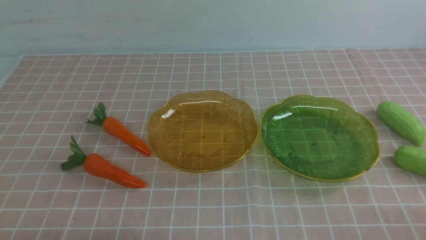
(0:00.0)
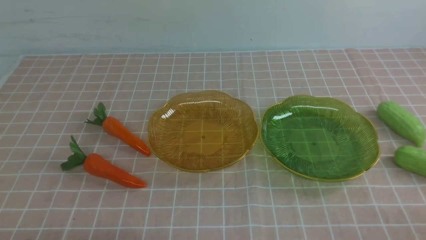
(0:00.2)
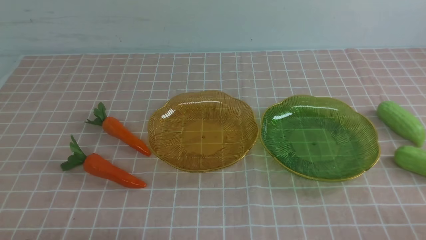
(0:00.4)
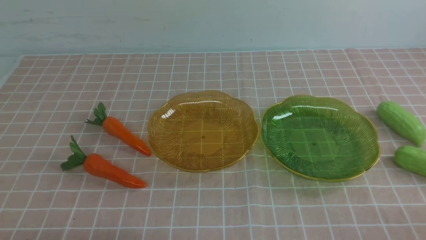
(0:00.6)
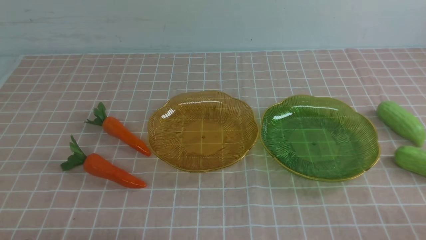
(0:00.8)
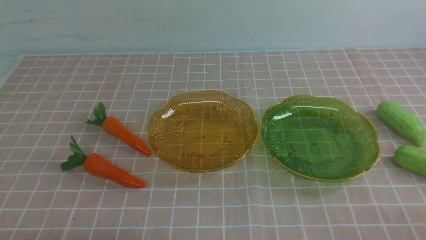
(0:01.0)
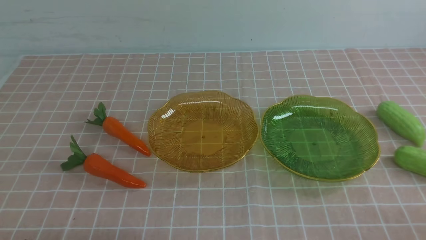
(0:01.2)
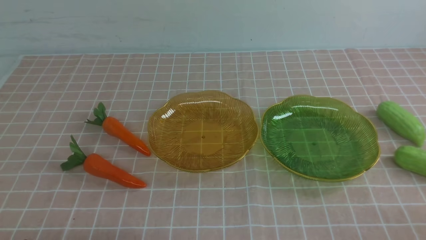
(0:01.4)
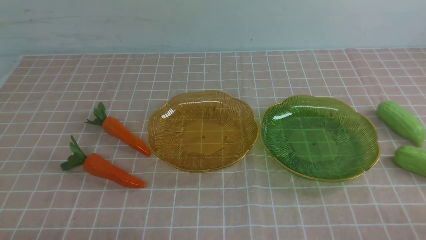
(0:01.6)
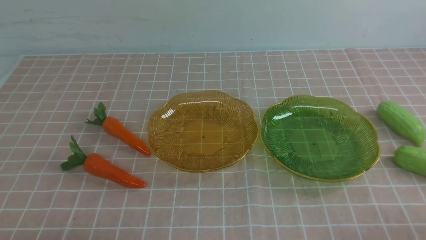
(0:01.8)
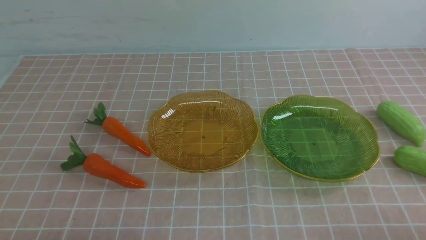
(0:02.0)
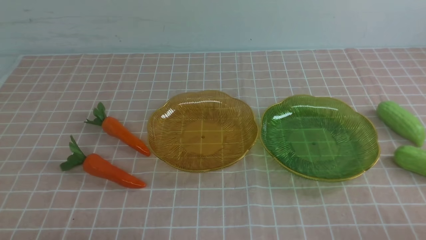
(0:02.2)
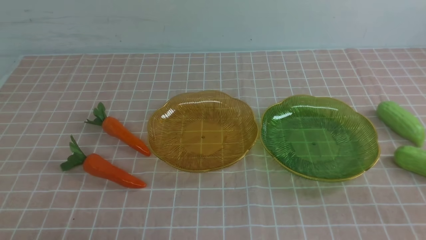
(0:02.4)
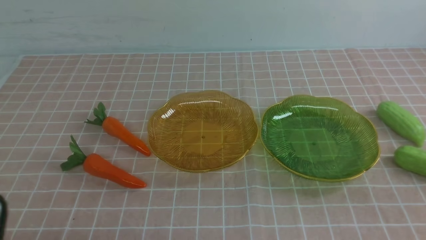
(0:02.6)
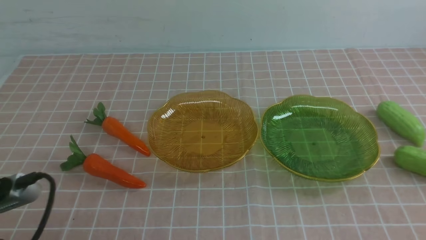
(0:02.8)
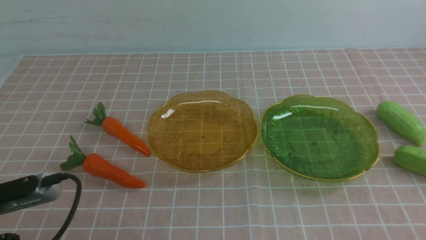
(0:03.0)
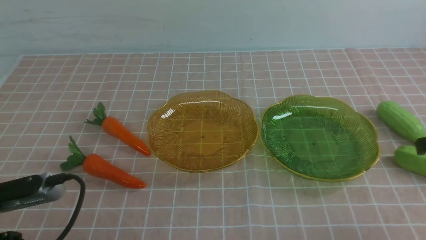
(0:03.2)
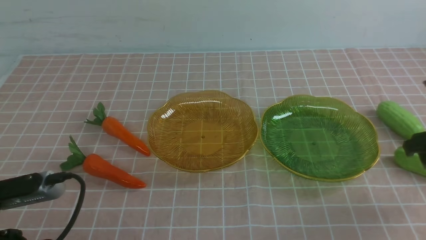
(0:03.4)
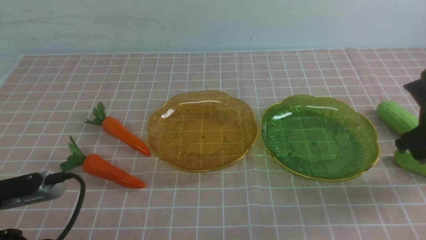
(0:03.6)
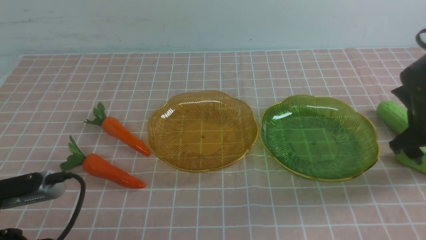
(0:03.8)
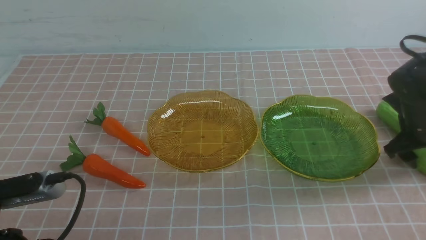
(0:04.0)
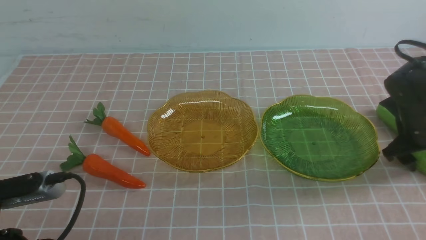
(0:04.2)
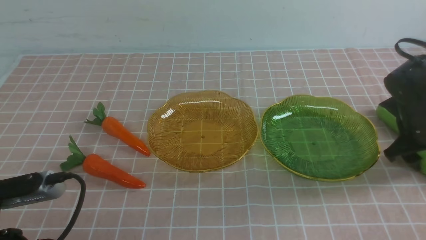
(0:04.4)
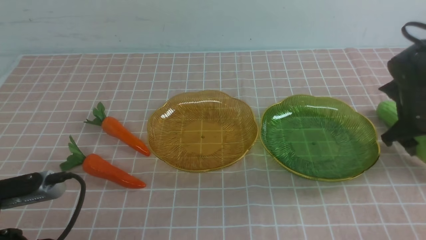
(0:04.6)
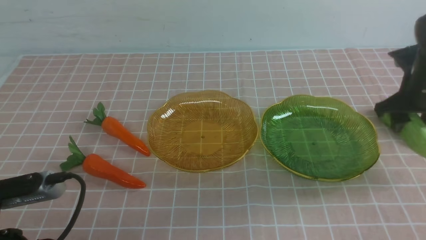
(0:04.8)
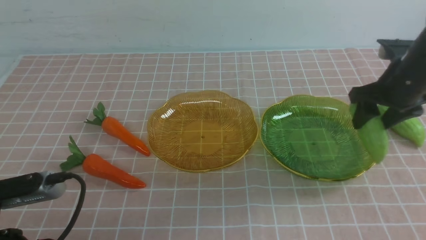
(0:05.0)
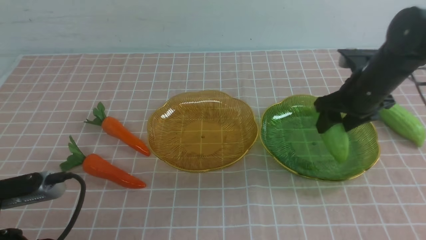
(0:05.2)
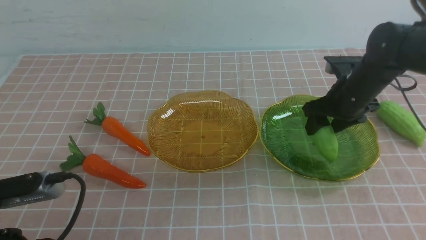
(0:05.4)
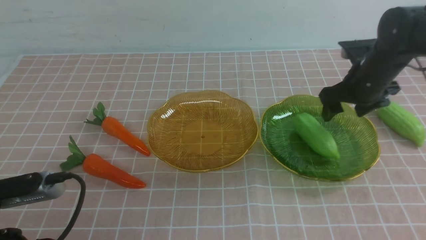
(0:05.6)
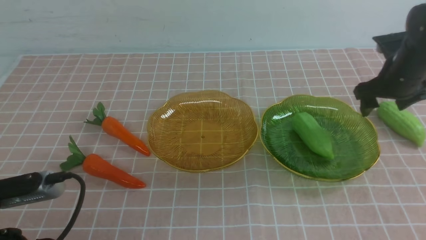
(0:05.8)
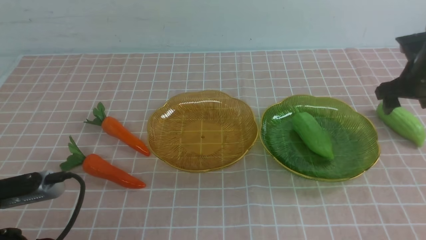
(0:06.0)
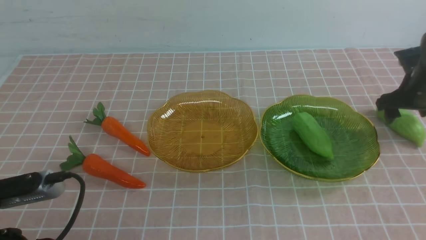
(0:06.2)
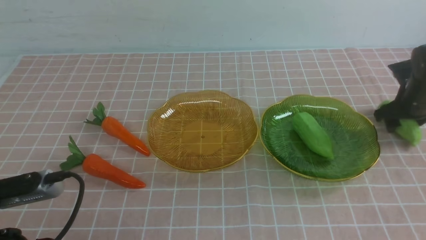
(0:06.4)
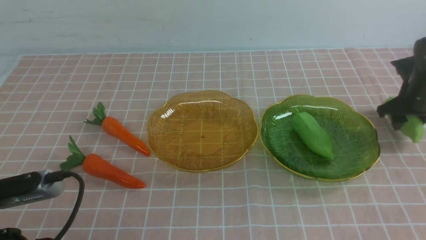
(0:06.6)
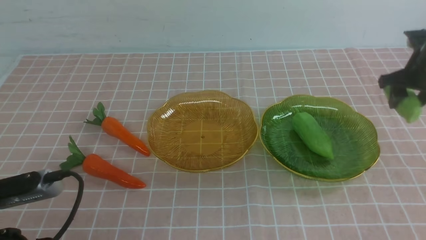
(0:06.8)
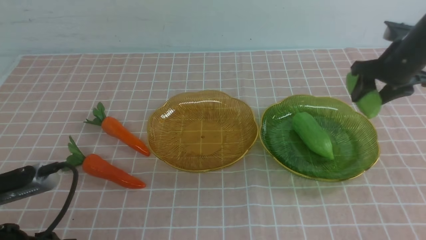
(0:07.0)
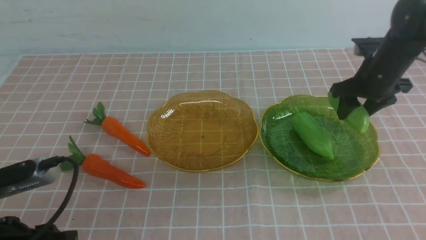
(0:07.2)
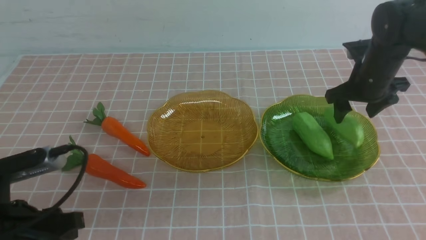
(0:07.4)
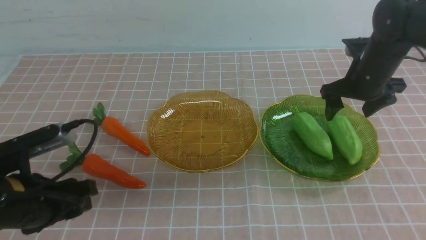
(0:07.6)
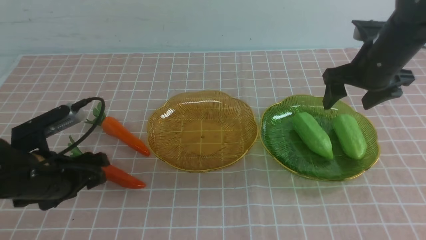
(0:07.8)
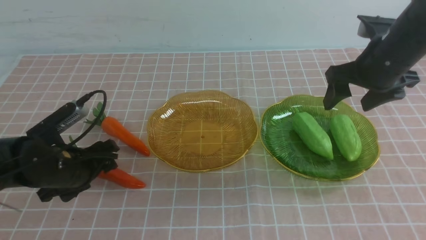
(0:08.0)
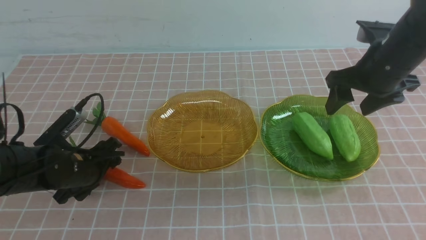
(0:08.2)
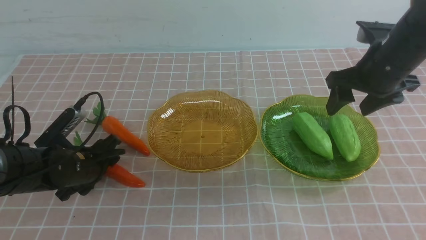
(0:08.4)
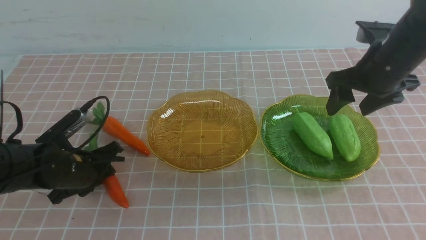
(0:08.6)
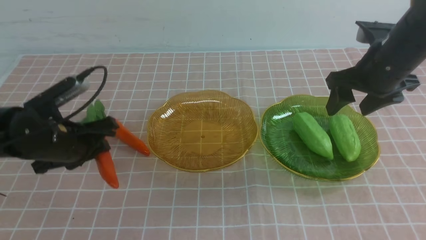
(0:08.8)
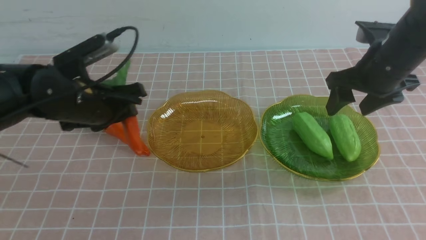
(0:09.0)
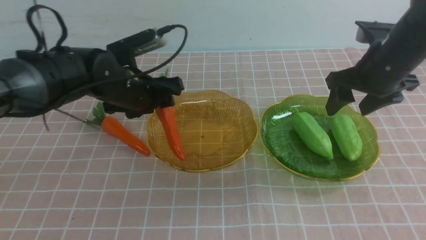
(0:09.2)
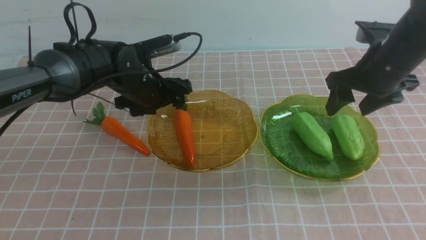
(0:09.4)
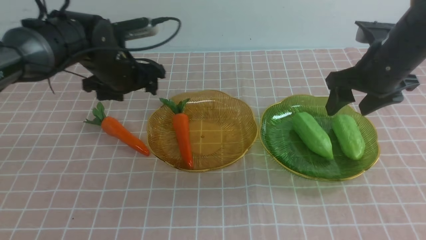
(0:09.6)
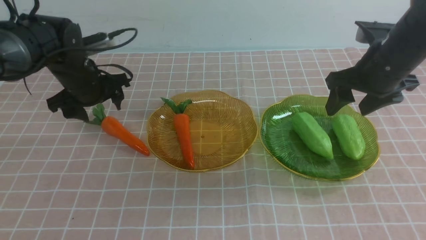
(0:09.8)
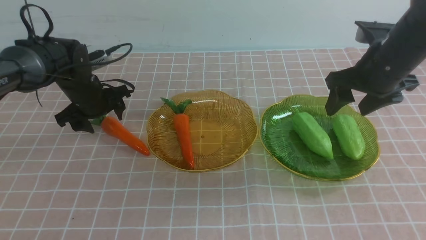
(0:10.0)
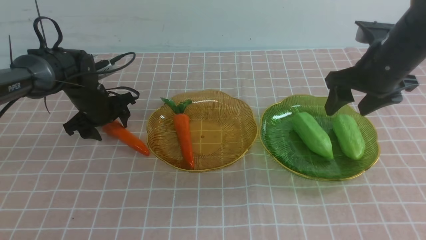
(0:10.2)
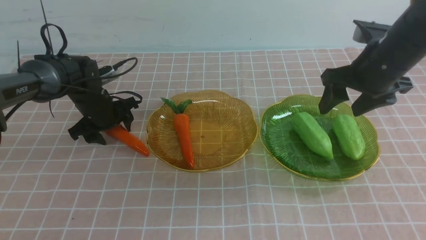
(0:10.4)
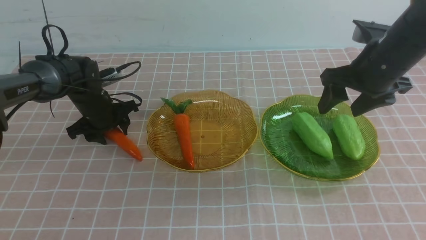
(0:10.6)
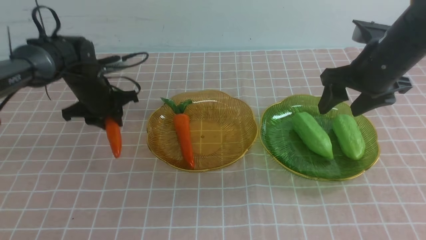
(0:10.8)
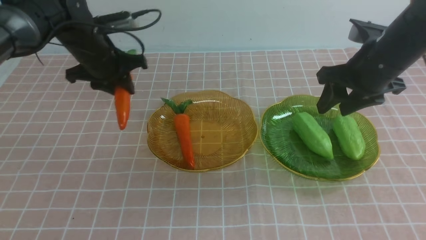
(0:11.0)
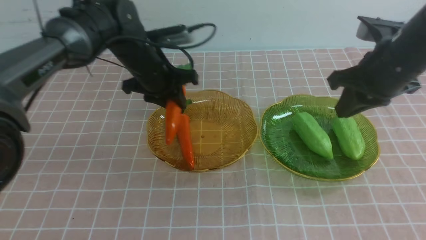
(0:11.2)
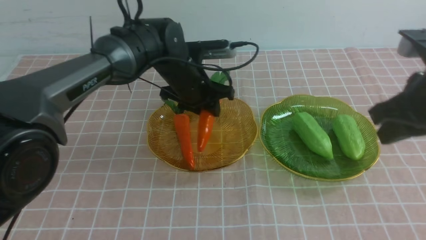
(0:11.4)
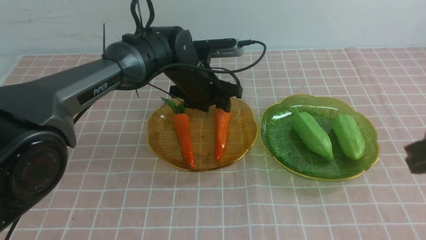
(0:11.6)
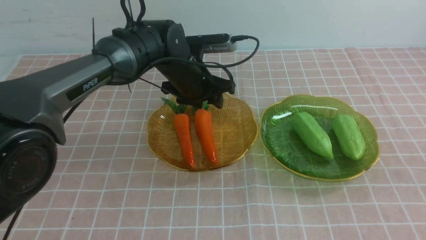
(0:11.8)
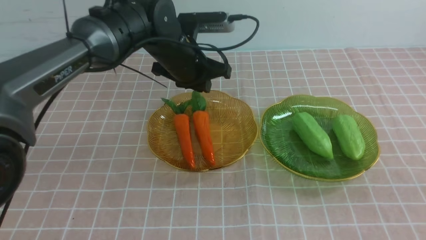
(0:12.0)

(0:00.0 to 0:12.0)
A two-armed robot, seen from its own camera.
Step, 0:00.0 - 0:07.2: use the right arm to grab a chayote and put it into the right plate.
Step, 0:07.6 - 0:11.6: use the left arm to grab a carrot and put it into the left plate.
0:01.6 - 0:03.0: The left gripper moves upward and forward, roughly 10 cm.
0:03.0 - 0:04.4: The right gripper moves forward, some 15 cm.
0:04.4 - 0:06.0: The right gripper goes roughly 5 cm forward.
0:06.0 - 0:07.6: The right gripper is displaced to the left, upward and backward by approximately 15 cm; the left gripper travels forward by roughly 15 cm, and opens its fingers.
0:07.6 - 0:09.0: The left gripper is displaced forward by approximately 15 cm, and closes and opens again.
0:09.0 - 0:10.4: The left gripper travels downward and back again, approximately 10 cm each way, and closes up.
0:10.4 - 0:12.0: The left gripper heads to the right and upward, covering some 15 cm, and closes its fingers; the right gripper travels backward by some 25 cm, and closes its fingers.

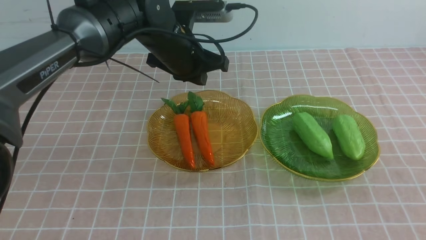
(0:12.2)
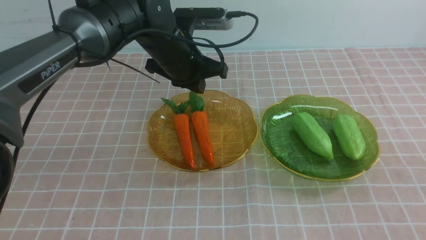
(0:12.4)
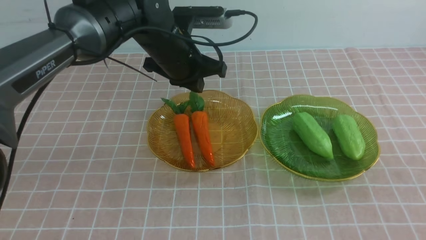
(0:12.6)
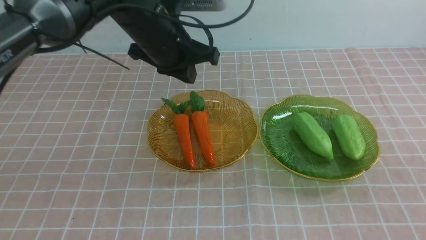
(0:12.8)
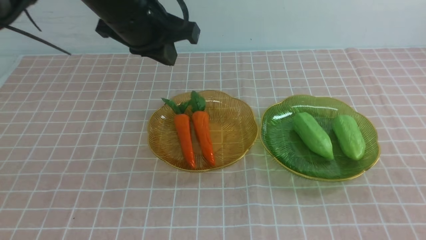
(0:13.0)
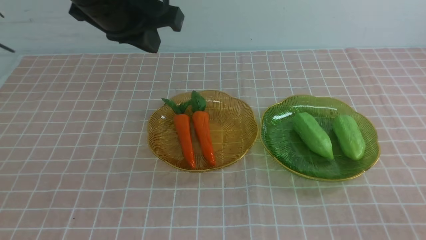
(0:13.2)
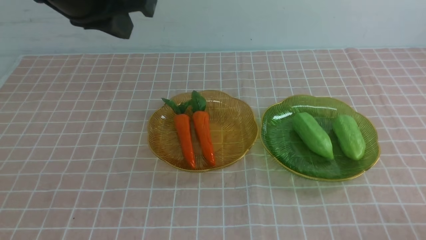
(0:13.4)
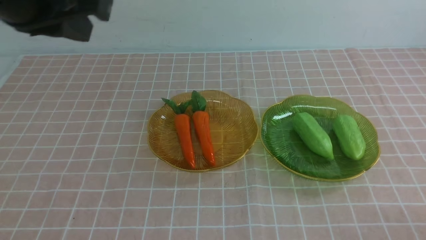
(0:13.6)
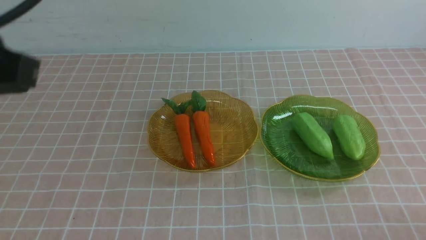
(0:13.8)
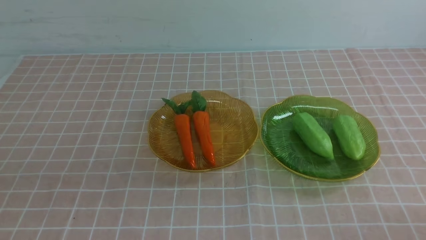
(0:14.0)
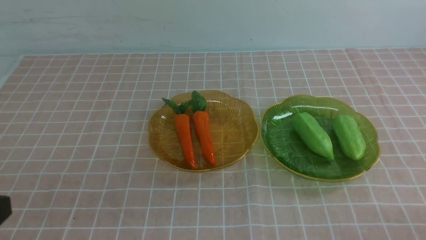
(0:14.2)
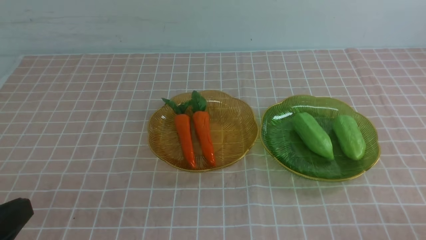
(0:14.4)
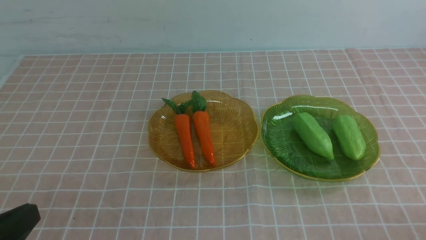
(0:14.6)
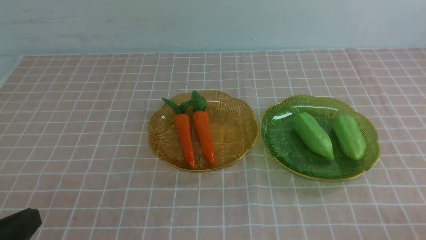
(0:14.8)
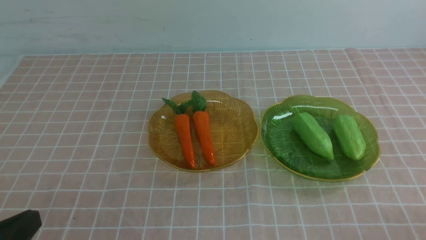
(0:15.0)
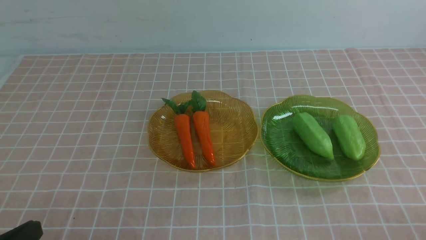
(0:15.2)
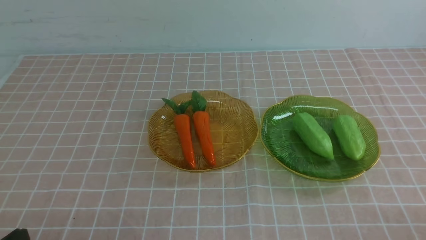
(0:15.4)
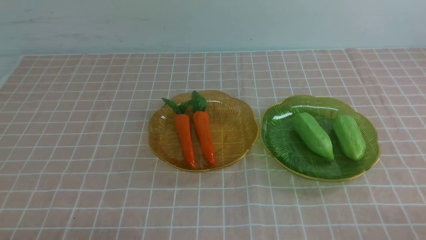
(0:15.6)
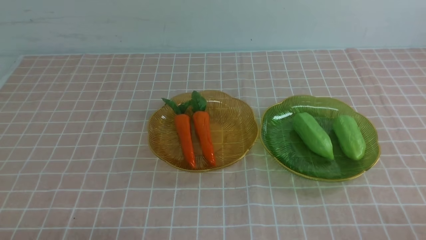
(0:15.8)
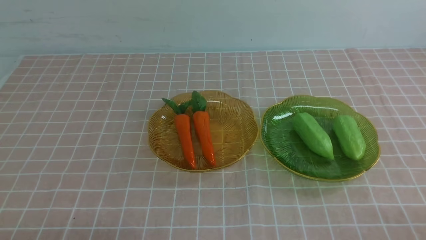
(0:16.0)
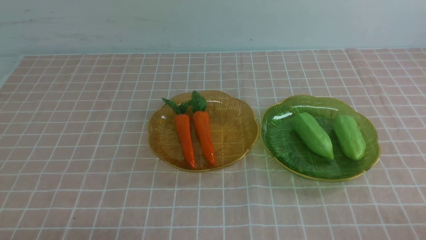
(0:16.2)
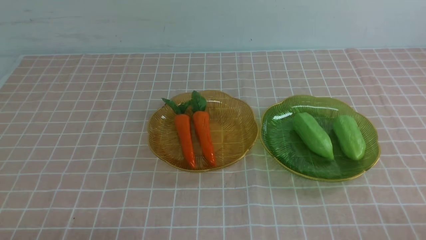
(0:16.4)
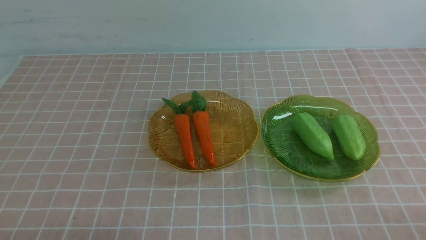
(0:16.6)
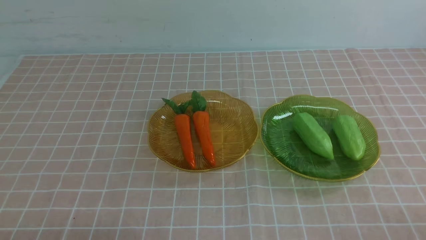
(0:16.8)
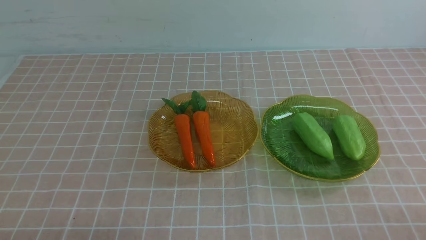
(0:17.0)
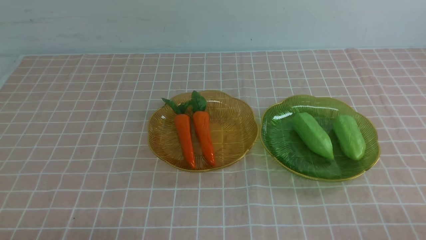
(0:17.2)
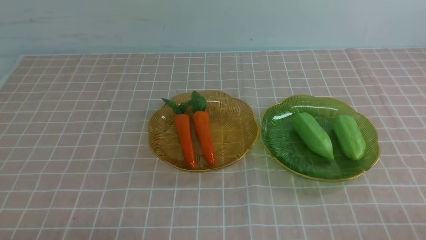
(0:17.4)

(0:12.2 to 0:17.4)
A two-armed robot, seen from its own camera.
0:12.2 - 0:14.0: The left gripper is displaced backward and to the left by approximately 35 cm. The right gripper is displaced downward by about 10 cm.
0:15.6 - 0:17.4: The two grippers keep their place.
